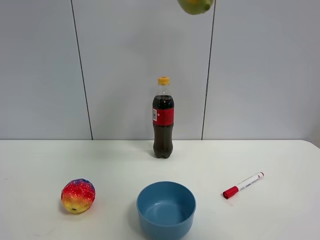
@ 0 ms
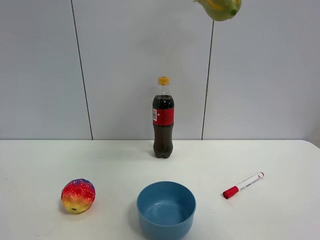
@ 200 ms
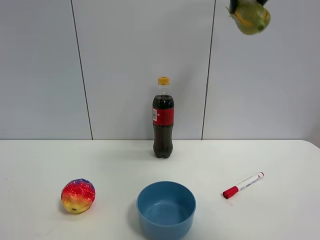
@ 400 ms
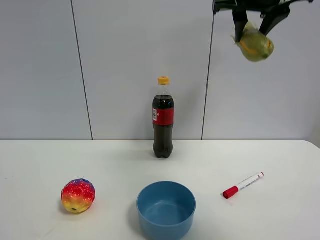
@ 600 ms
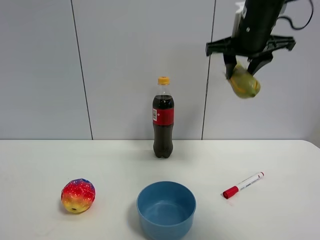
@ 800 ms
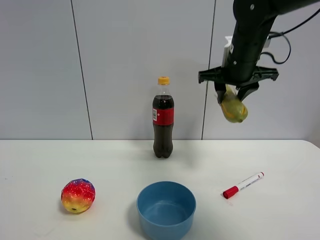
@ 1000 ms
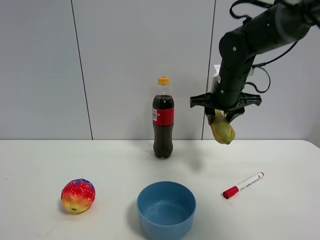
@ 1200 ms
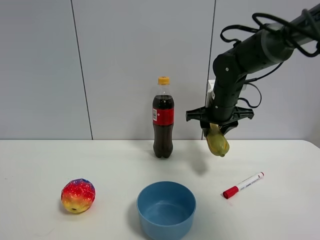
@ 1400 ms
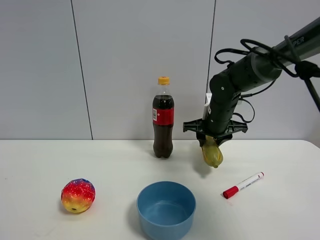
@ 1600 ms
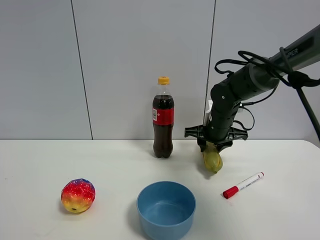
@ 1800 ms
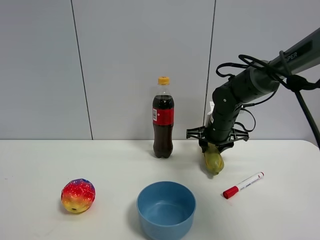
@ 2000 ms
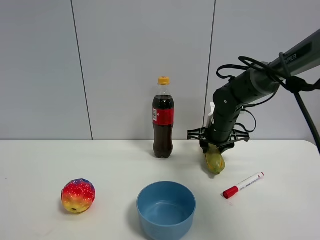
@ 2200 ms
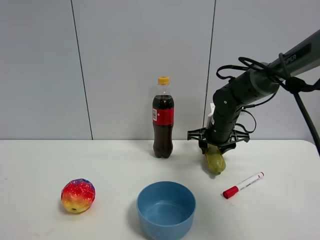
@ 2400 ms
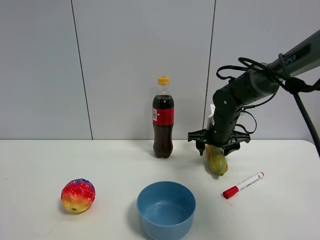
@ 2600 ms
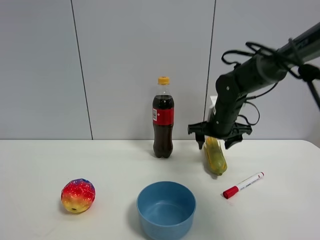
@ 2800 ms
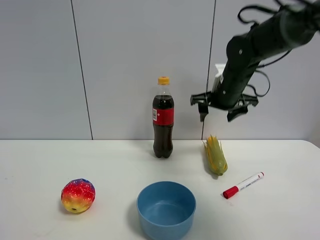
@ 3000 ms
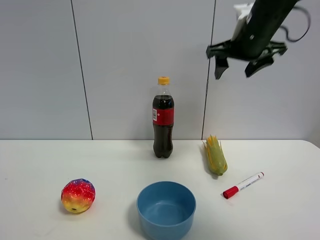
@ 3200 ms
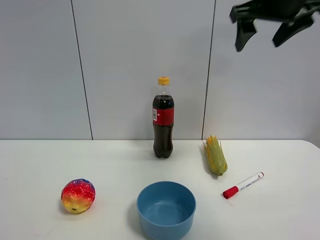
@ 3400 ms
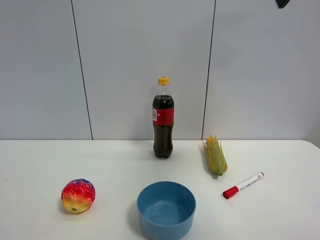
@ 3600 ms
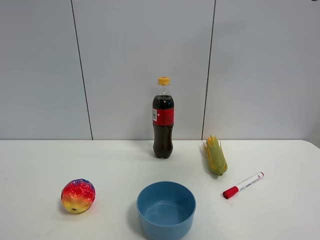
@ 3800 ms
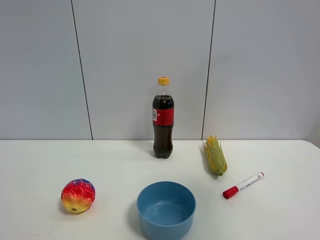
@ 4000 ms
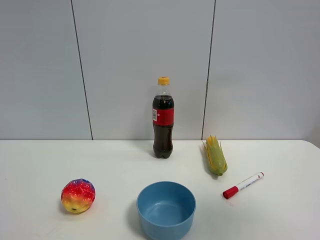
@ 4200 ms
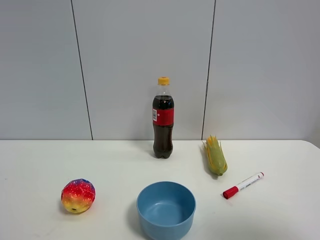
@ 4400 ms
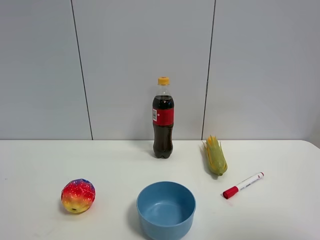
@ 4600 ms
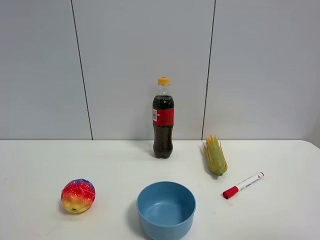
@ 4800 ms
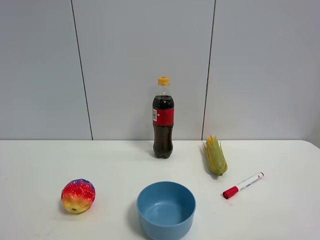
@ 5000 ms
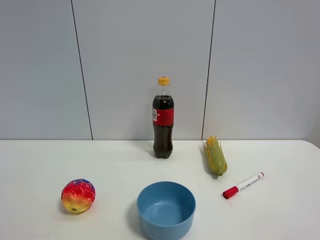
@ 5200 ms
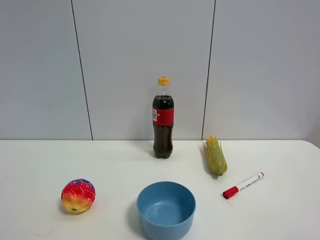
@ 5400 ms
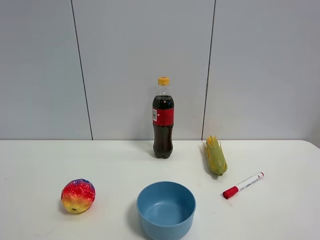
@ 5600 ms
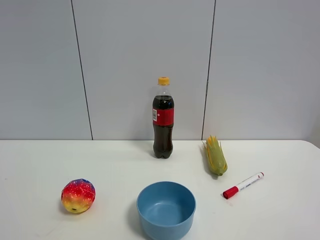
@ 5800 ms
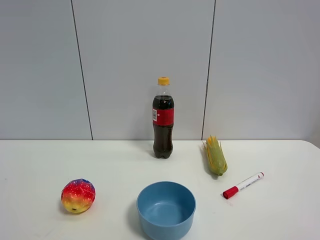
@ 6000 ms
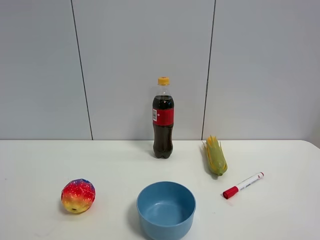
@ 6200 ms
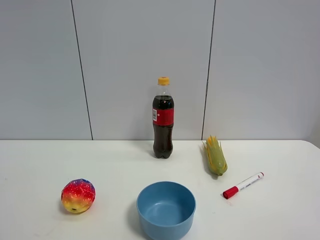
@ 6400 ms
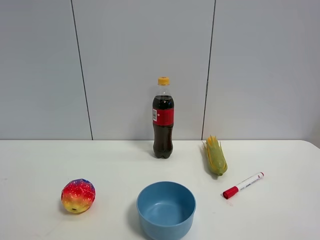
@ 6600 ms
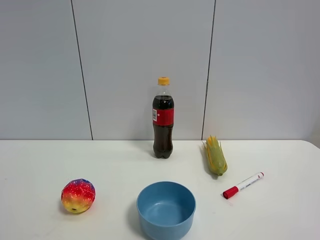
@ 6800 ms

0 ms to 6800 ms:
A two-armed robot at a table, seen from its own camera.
Task of the whole recording: the gripper move the object.
Step, 0 ms to 2600 ms: Place the corn on the table with the right gripper.
0 ms to 1400 ms: The right gripper heads downward and forward, covering about 35 cm.
1400 ms to 2800 ms: The right gripper opens.
2800 ms to 4000 ms: The right gripper travels backward and upward by some 40 cm.
4000 ms to 5400 ms: The right gripper heads backward and downward, covering roughly 20 cm.

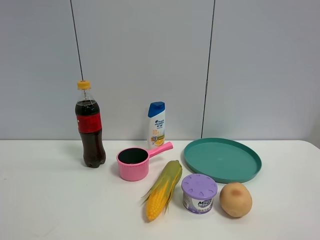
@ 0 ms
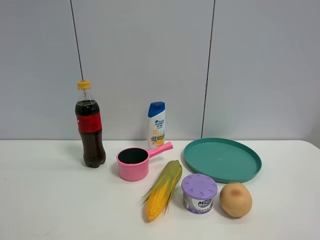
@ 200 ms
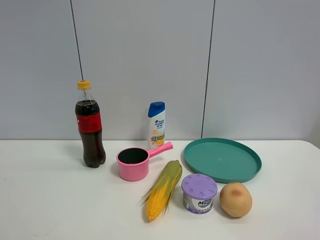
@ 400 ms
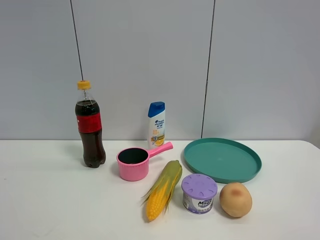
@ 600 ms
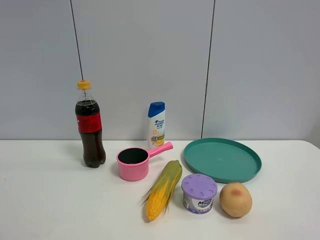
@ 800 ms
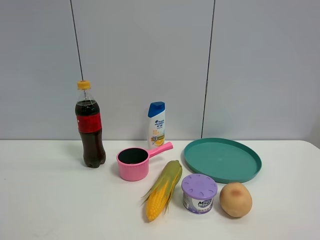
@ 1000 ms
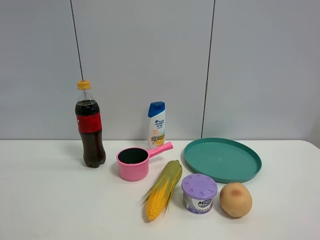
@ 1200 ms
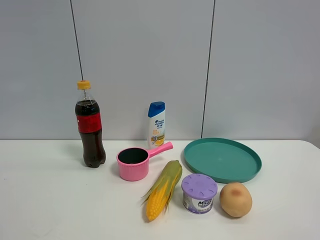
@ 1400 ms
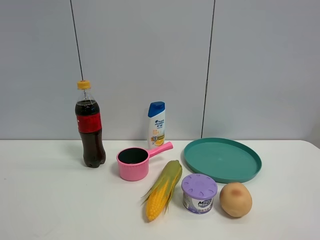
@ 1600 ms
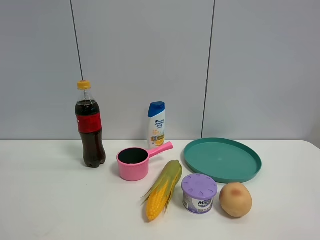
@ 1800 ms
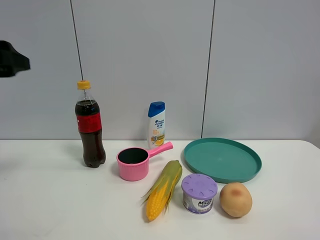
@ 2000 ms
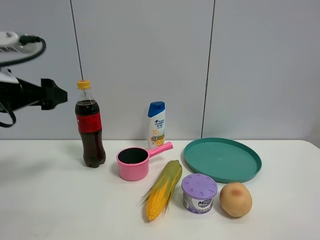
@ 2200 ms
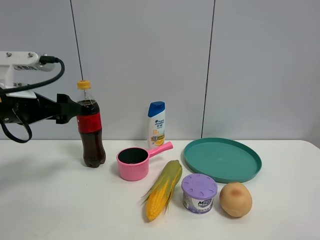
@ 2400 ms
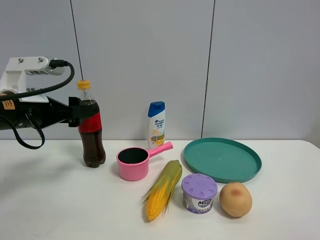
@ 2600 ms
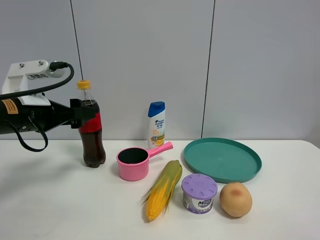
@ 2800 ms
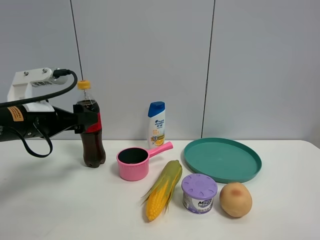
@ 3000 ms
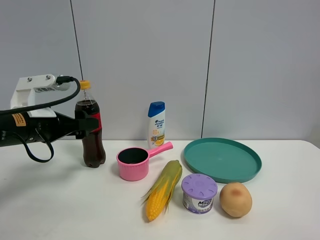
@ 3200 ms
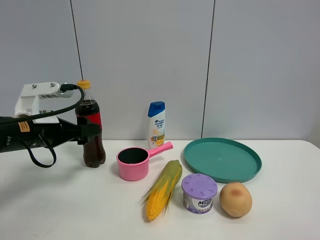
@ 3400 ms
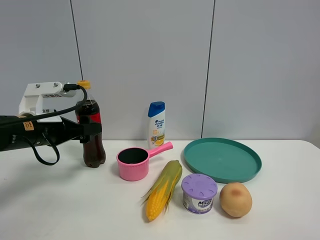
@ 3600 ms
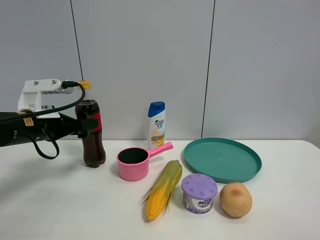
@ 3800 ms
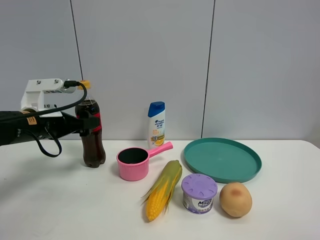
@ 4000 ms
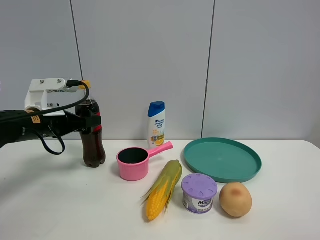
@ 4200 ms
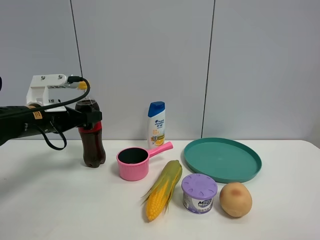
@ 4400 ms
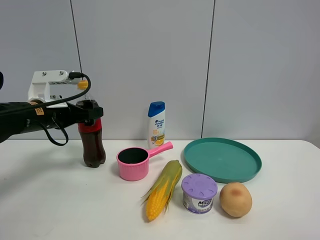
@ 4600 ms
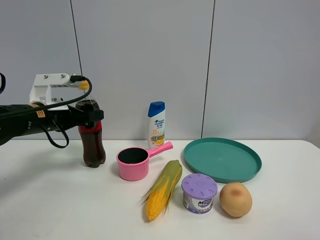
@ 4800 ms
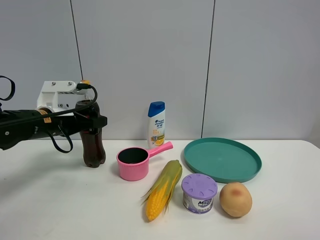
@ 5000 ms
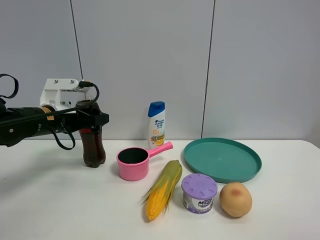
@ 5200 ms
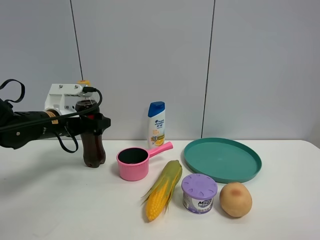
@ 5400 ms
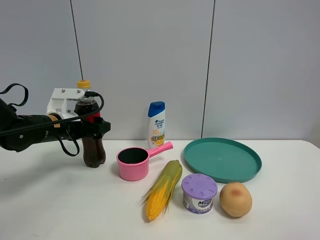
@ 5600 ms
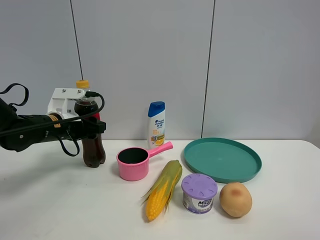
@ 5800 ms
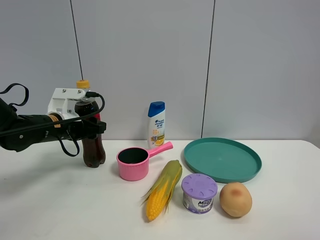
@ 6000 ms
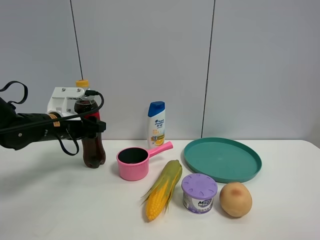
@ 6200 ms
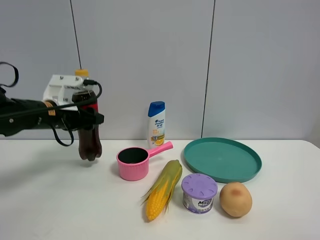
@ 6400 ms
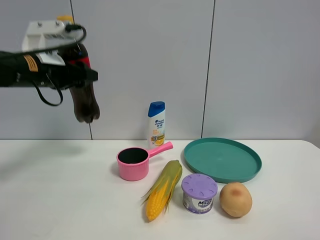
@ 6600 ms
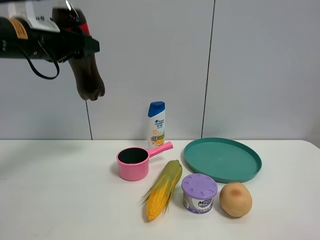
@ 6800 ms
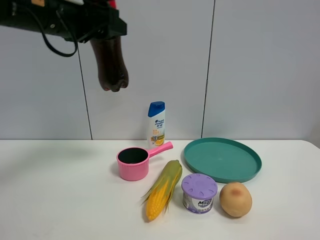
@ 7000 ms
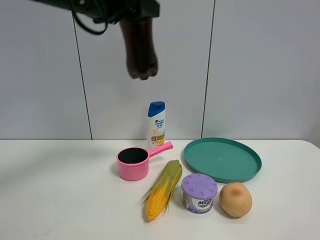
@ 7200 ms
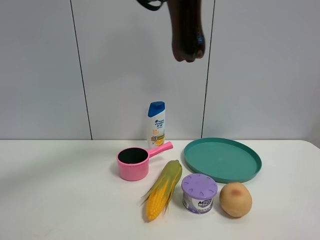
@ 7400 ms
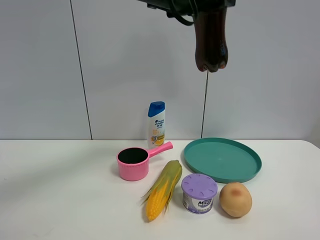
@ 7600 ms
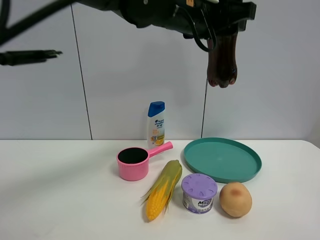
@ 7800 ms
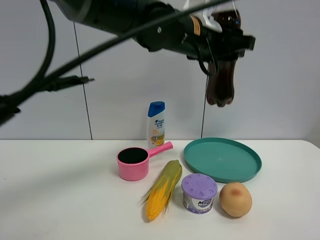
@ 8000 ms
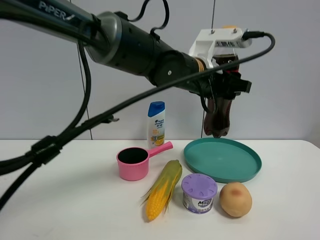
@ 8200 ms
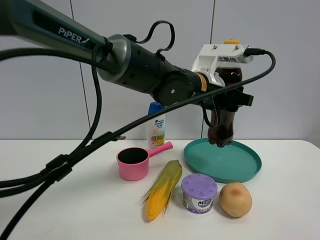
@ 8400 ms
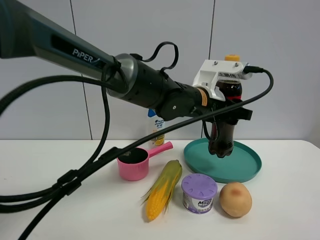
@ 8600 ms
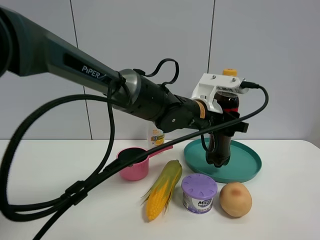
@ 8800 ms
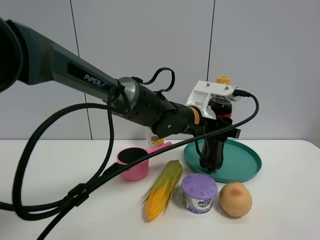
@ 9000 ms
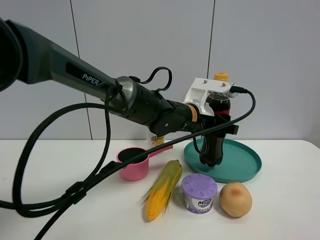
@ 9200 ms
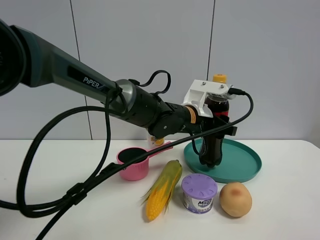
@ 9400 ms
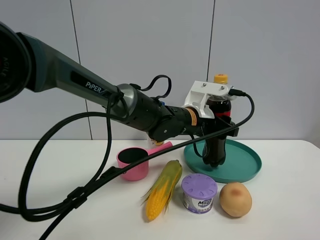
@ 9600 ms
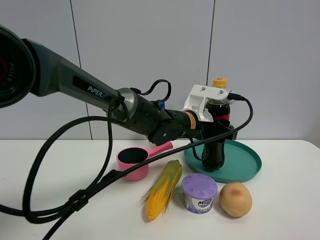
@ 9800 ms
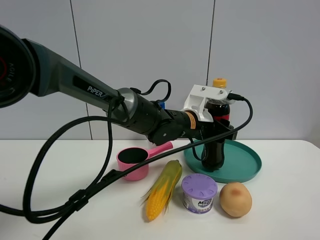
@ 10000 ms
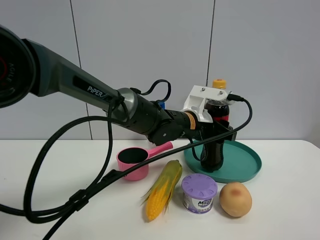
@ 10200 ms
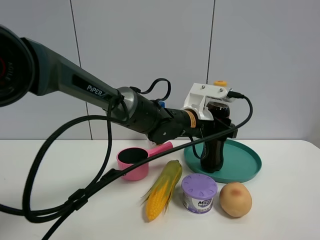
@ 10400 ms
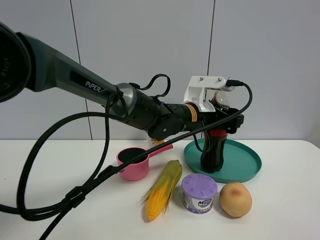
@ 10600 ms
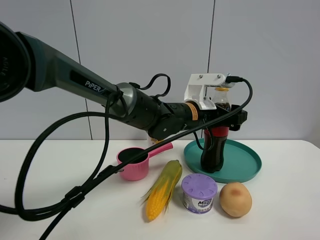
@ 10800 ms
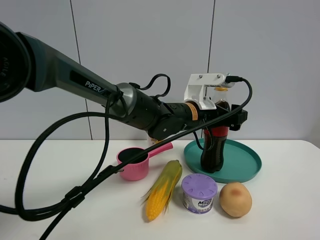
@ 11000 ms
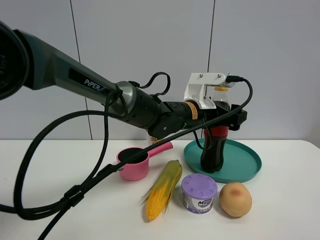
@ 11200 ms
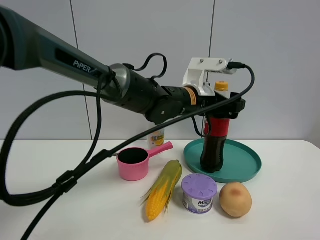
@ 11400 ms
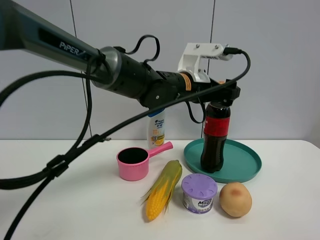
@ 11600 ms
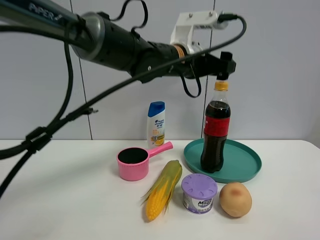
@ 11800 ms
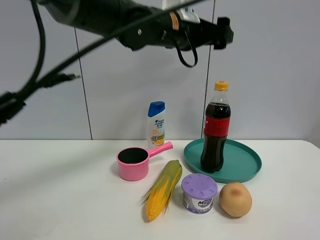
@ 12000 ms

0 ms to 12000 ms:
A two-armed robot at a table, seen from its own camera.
Task of the whole recording: the gripper move the object.
Step, 0 ms to 6000 ms: Grasp the coke with the left gripper.
Step, 6200 ms to 11800 ms: Place the coke into the green plate with the left gripper.
1600 ms to 3000 ms: The left gripper heads downward, forward and to the right, covering about 25 cm.
3000 ms to 4400 ms: The left gripper goes roughly 5 cm forward.
4400 ms to 6000 ms: The left gripper shifts by approximately 5 cm, and closes its fingers.
6000 ms to 7600 ms: The left gripper moves upward and to the right, some 35 cm.
7600 ms to 9000 ms: The left gripper shifts about 20 cm downward.
9000 ms to 10400 ms: The grippers move only a little.
10400 ms to 12000 ms: The left gripper moves upward, approximately 20 cm, and opens up.

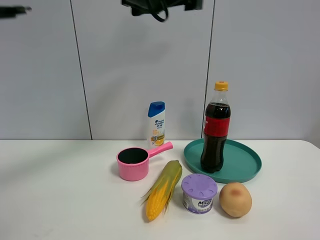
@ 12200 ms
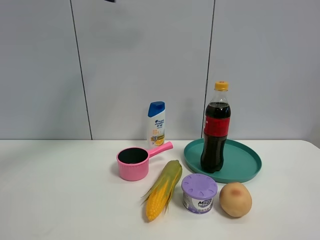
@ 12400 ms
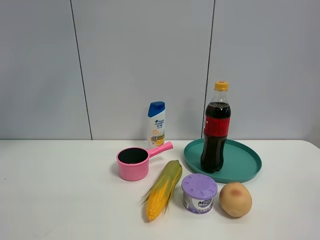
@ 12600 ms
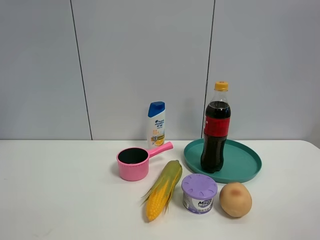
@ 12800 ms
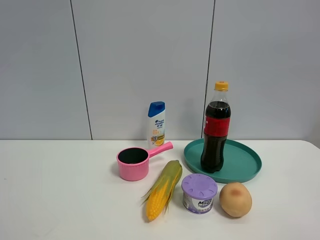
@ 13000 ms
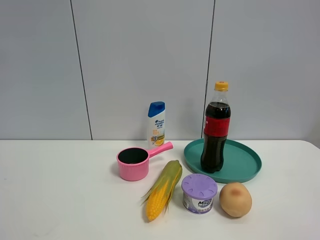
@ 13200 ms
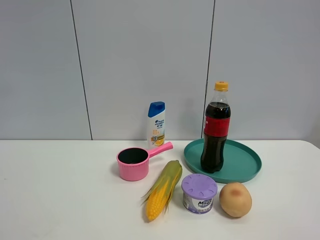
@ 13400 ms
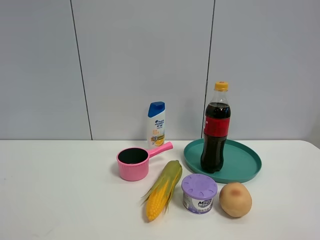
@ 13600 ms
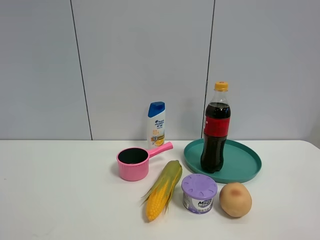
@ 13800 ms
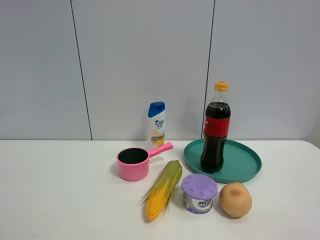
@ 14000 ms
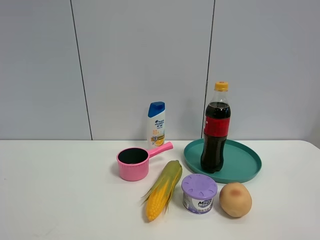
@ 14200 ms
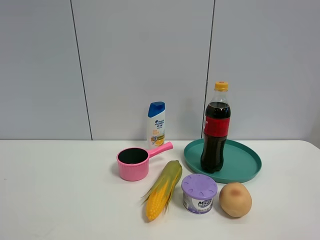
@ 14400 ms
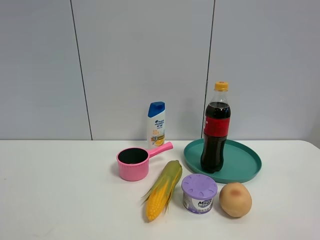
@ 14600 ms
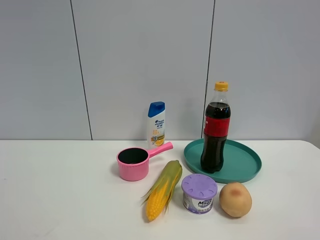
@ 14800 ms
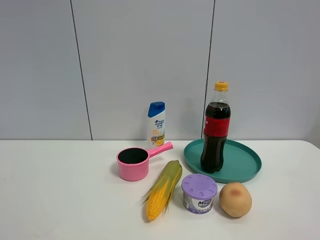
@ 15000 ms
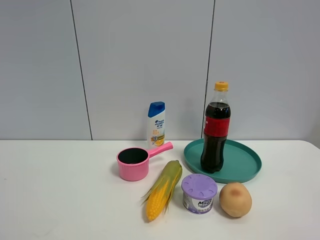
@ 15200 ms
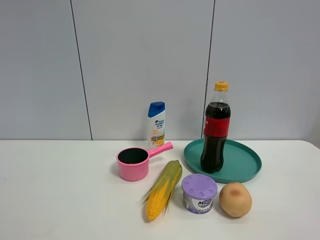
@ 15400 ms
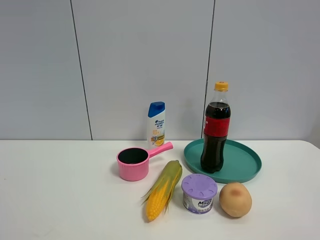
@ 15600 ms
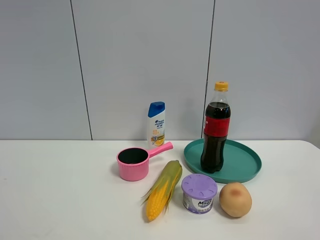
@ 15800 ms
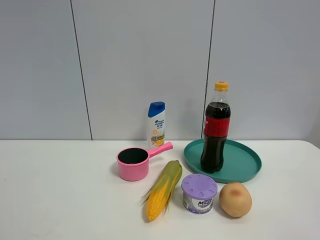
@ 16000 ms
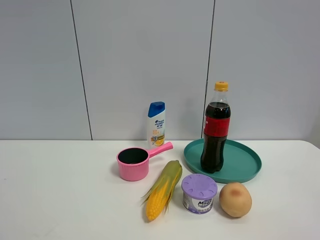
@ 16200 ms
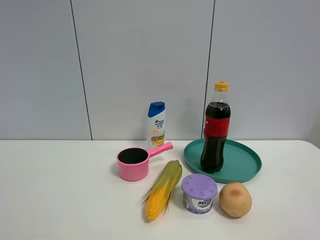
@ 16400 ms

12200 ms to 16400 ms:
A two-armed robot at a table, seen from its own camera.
Task of the whole recording: the gripper move the object.
12200 ms to 13600 ms: The left gripper travels backward and to the left by about 40 cm.
